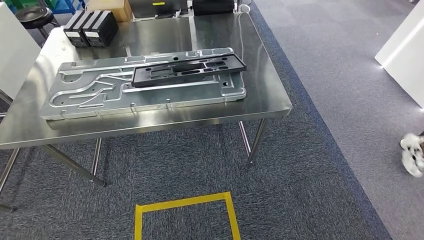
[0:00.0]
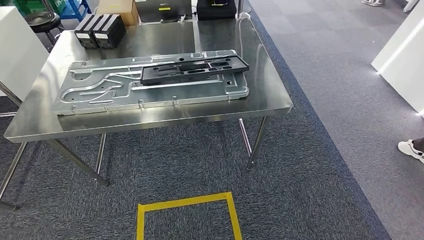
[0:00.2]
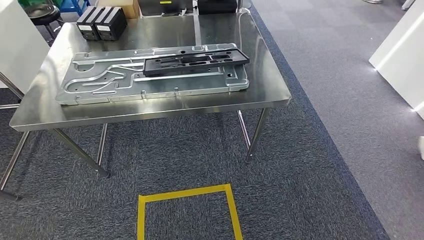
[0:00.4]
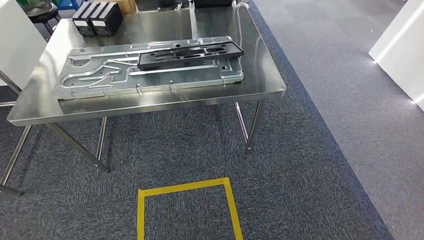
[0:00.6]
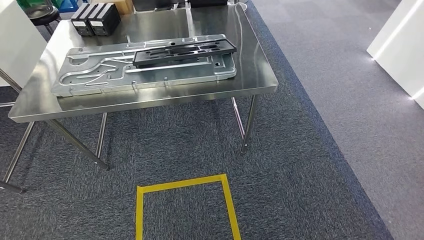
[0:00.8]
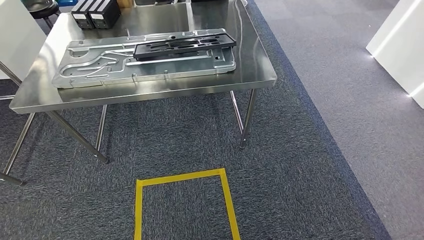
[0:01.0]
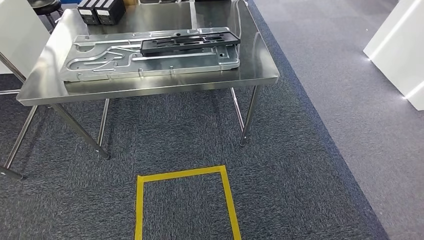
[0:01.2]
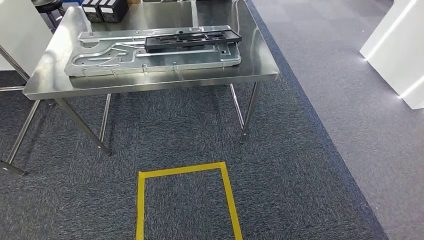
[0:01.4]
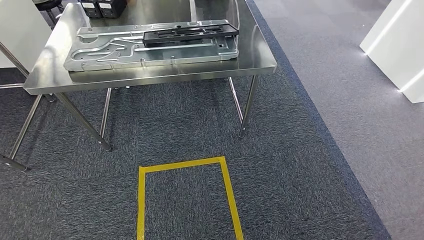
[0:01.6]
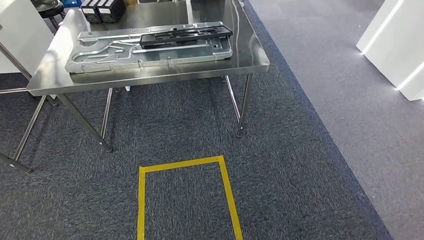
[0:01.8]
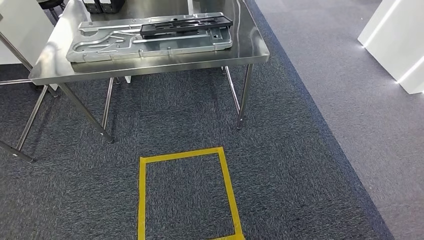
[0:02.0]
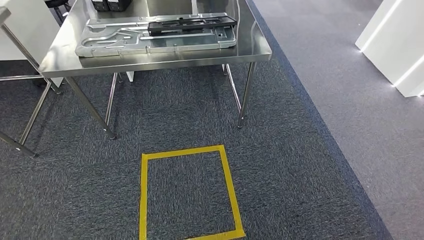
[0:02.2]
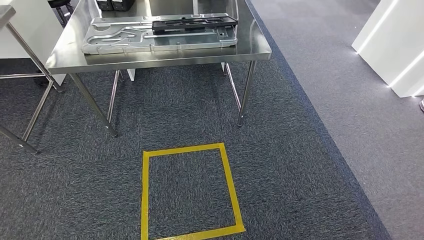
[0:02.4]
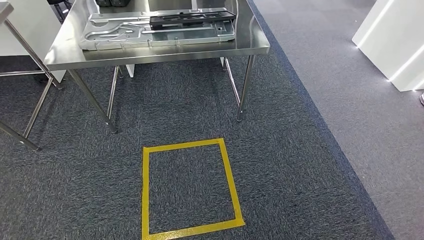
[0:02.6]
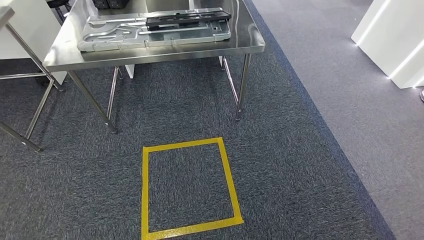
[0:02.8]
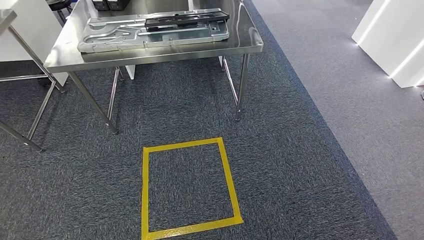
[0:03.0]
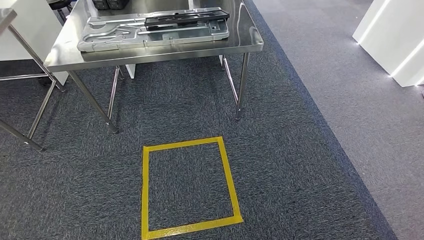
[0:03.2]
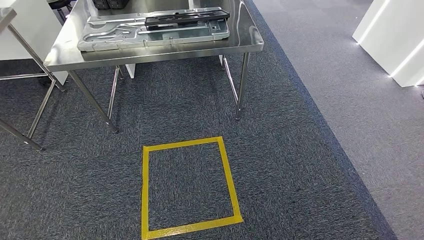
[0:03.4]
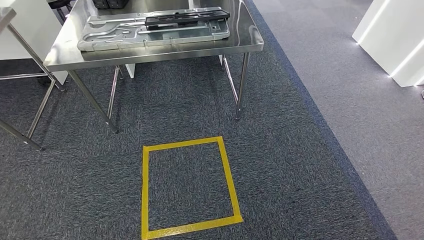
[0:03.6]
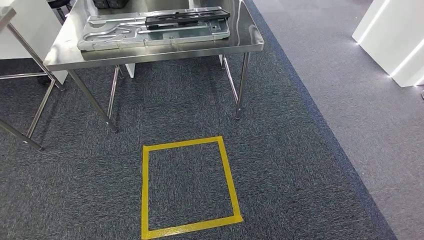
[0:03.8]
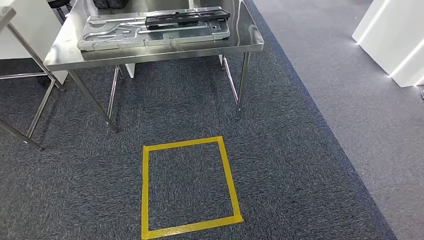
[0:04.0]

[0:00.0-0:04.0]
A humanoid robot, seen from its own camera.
Step, 0:00.0 to 0:03.8: Return to the initial position at the shelf.
0:02.6 to 0:04.0: The hands make only small movements.
